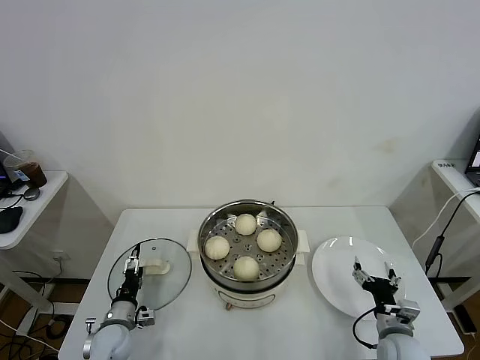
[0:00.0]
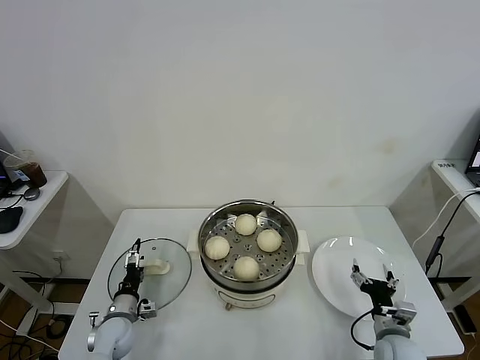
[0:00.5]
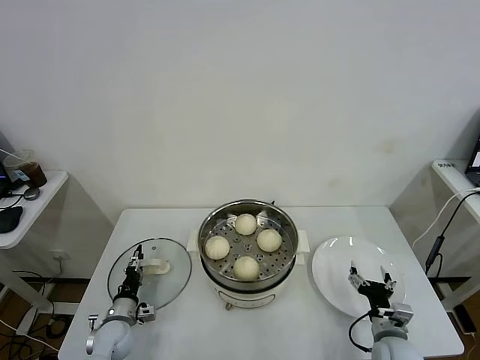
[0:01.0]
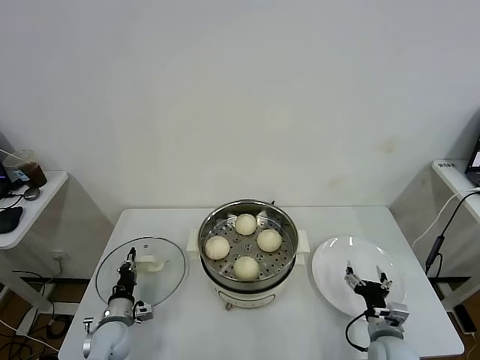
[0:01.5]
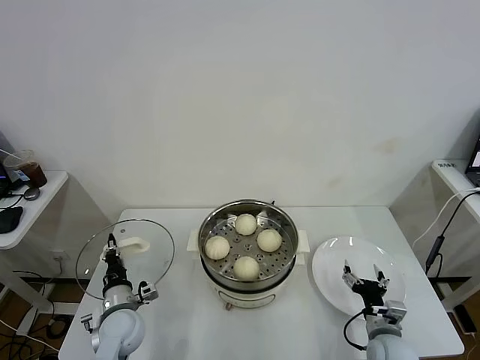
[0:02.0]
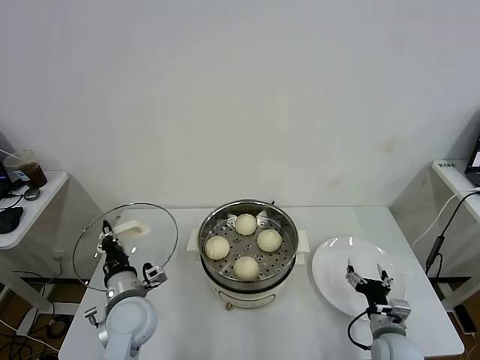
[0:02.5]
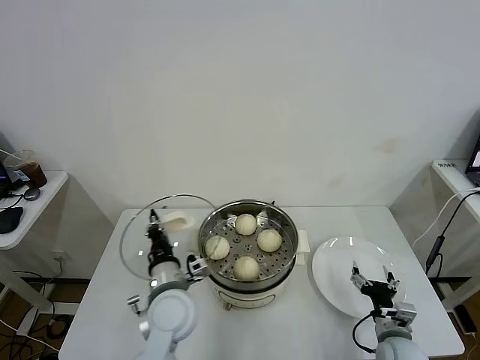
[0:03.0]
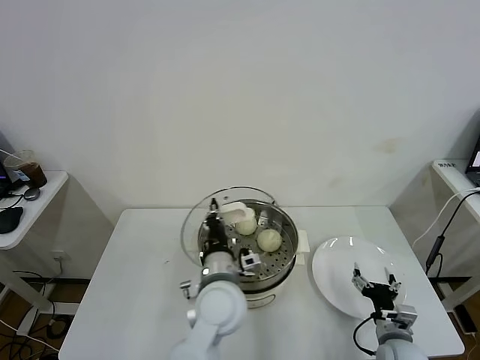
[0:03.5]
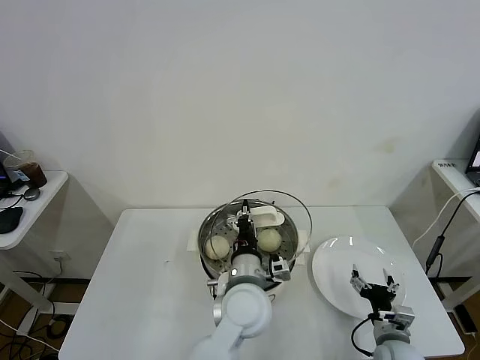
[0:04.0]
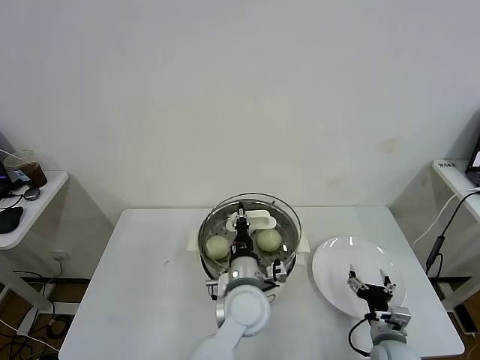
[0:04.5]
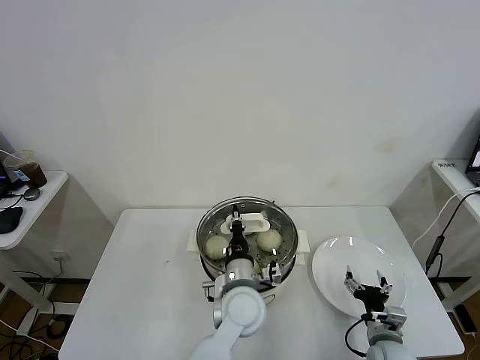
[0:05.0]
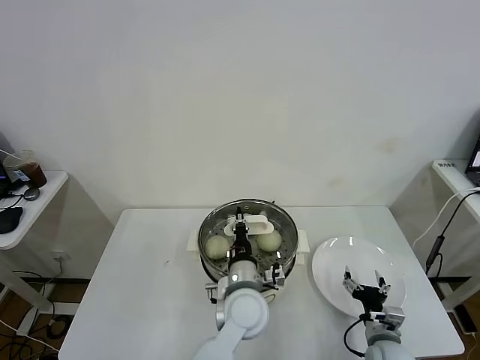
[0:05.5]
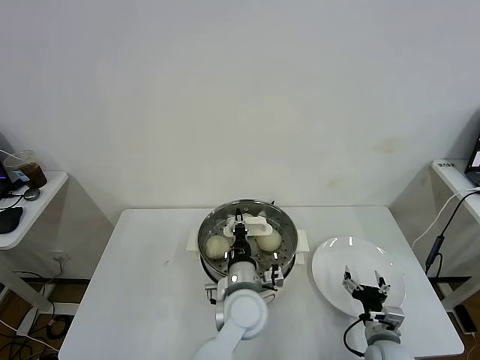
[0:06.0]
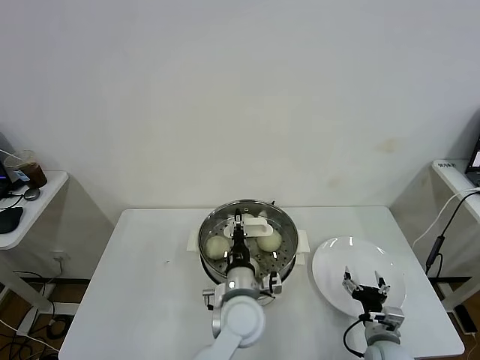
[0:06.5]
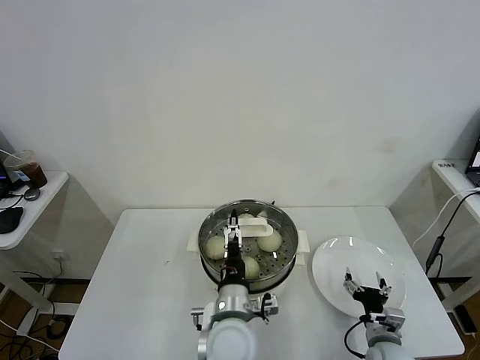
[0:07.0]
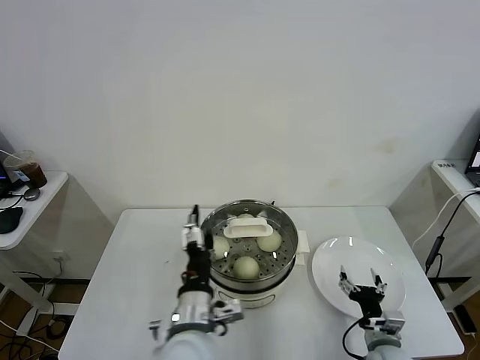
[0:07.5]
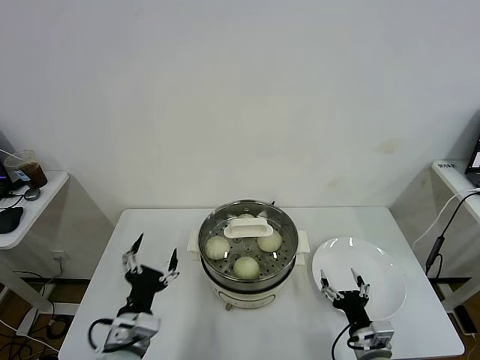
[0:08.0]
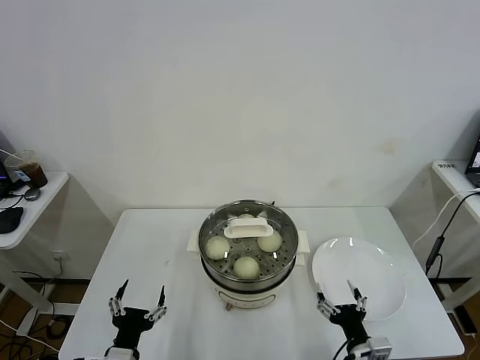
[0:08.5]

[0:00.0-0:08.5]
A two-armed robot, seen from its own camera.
Task of the whole recording: take steamed baozi put them in steamer.
Step, 0:02.0 to 0:06.5: Place the pot lid on the steamer with left gripper.
0:00.0 to 0:02.0: The left gripper travels upward by some 10 cm, and closes.
0:02.0 to 0:04.0: The left gripper moves to the right and upward, roughly 30 cm.
0:04.0 to 0:06.5: The left gripper travels downward by some 5 cm.
0:06.5 to 0:08.5: The right gripper is displaced backward by approximately 5 cm; the left gripper heads to the left and backward, covering some 30 cm, and opens.

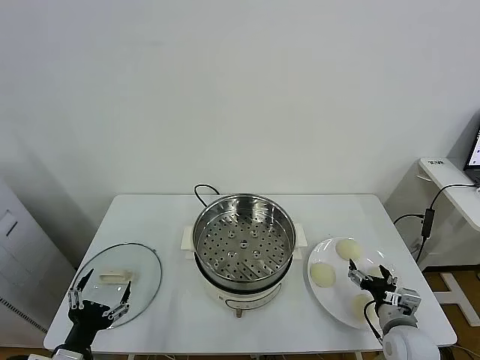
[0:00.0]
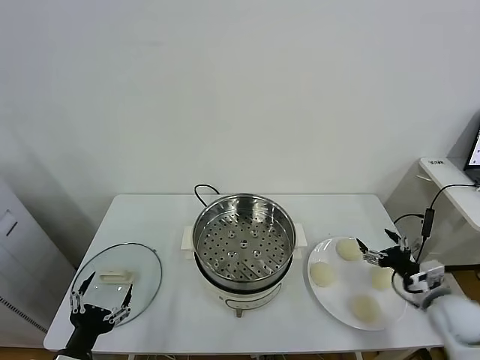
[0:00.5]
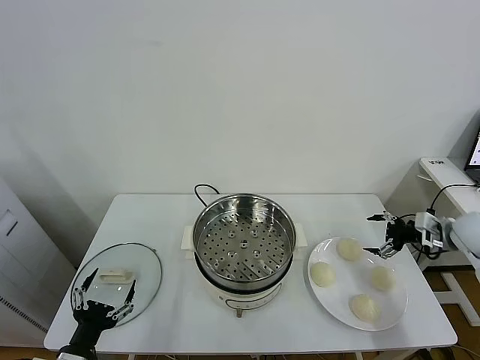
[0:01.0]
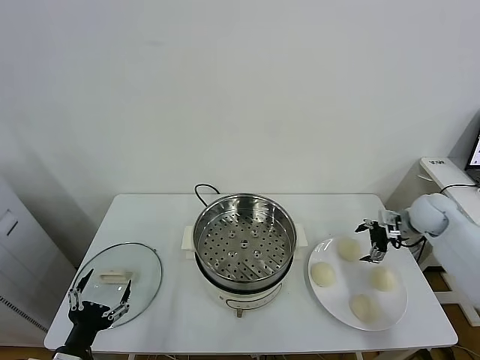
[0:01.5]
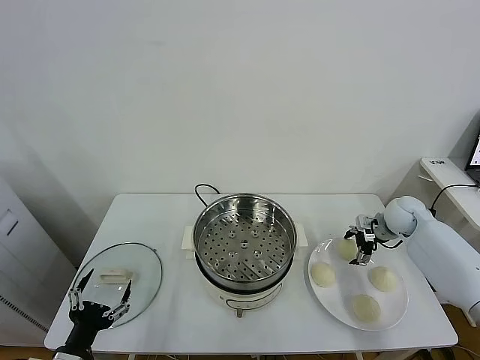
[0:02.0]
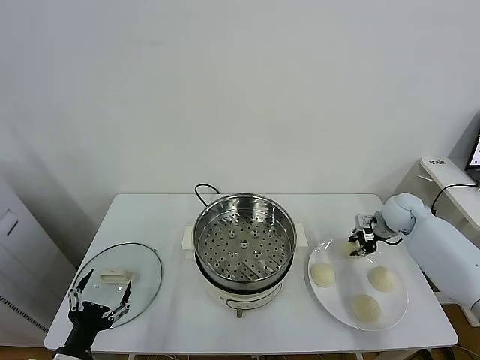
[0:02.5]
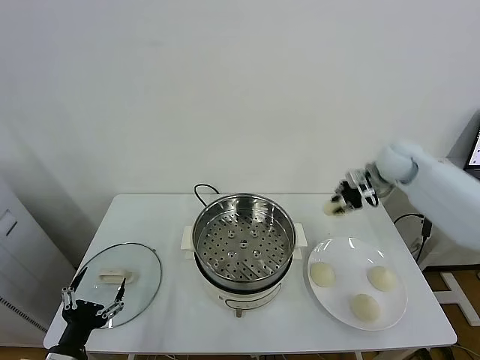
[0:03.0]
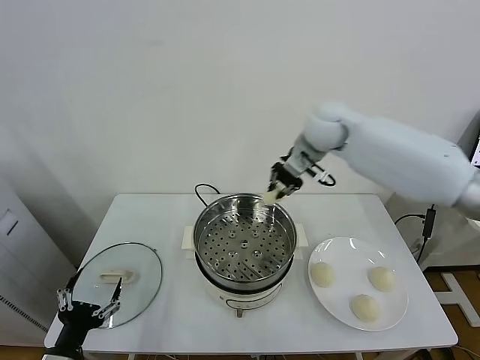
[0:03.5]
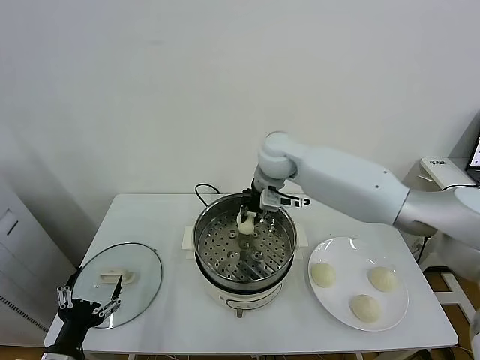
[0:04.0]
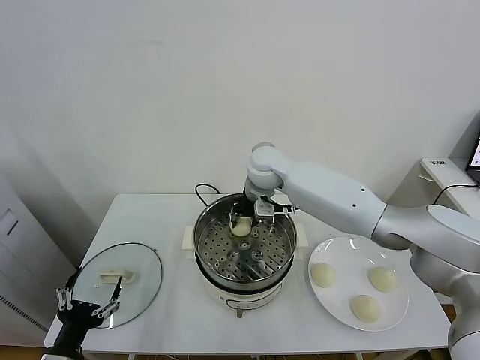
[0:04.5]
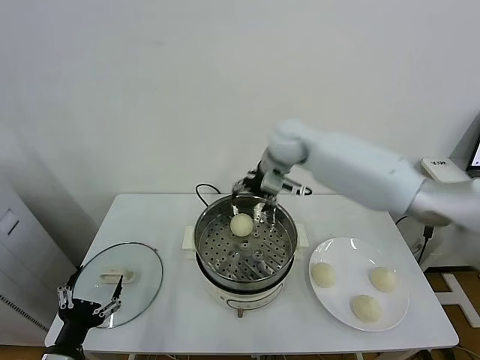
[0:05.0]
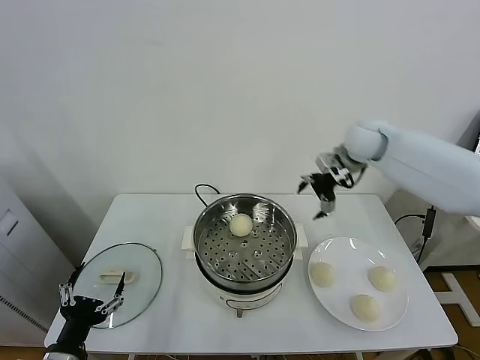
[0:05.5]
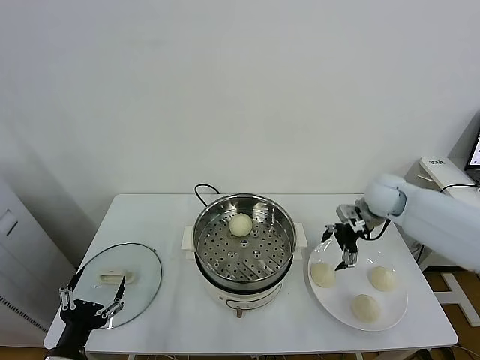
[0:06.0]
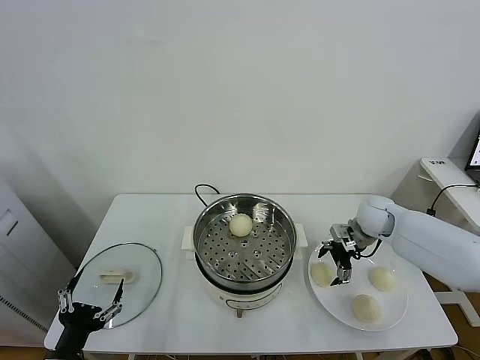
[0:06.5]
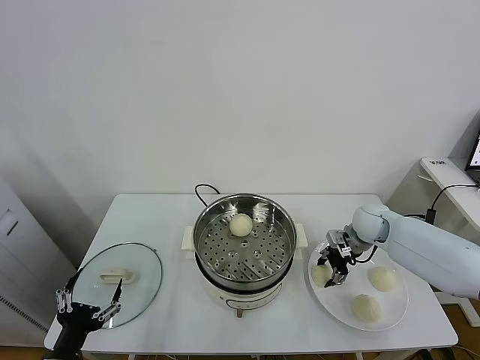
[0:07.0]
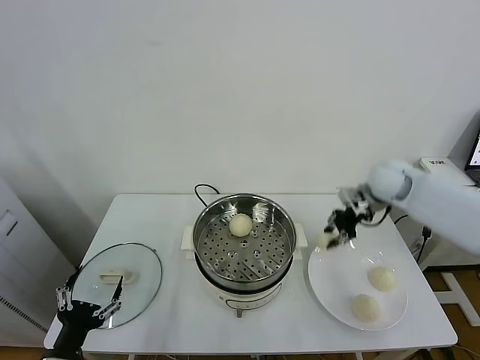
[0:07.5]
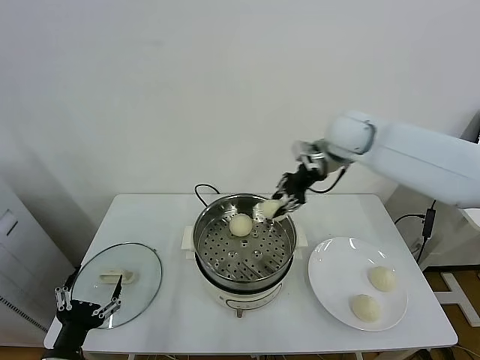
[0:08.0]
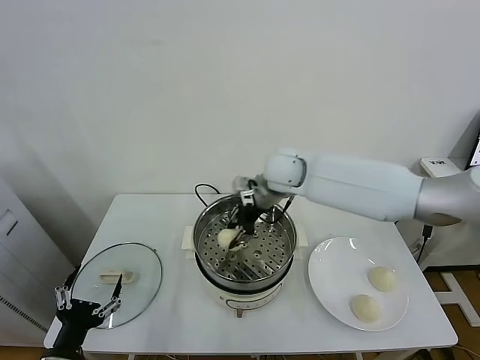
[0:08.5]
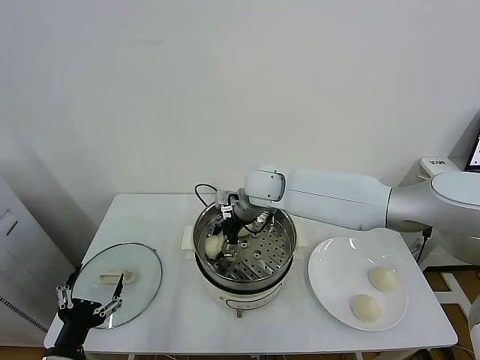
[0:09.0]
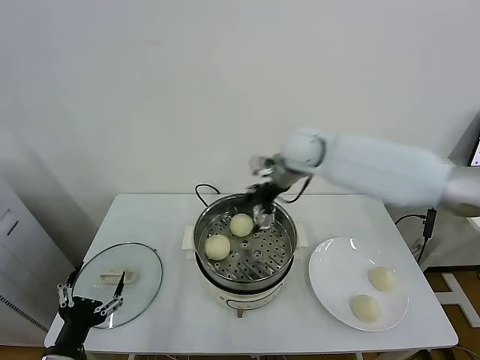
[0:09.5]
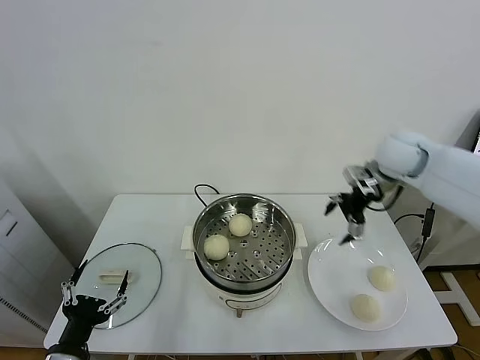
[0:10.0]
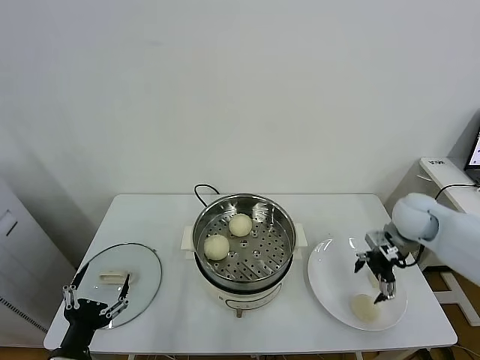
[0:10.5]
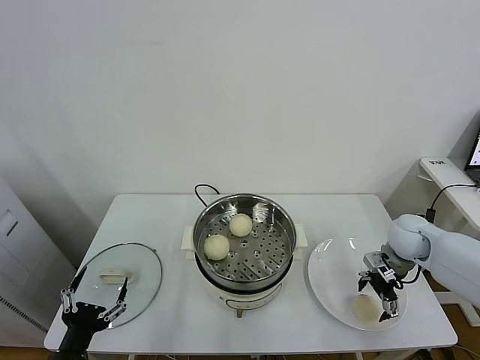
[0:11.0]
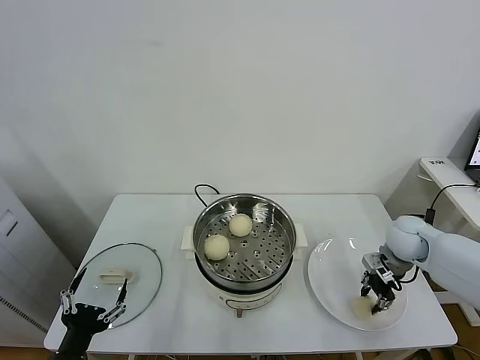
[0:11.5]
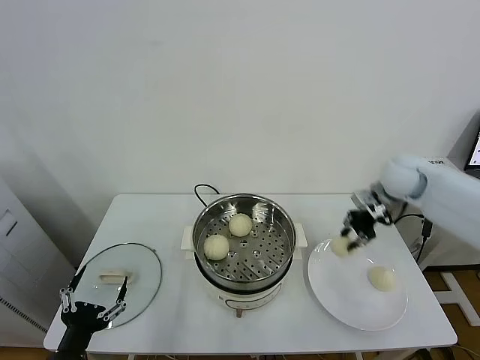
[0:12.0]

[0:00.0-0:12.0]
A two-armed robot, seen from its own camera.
Task of the whole recording: take steamed baozi put them in steamer.
Step, 0:00.0 to 0:02.0: Grasp the baozi in the plate with right gripper.
Step, 0:02.5 to 0:04.5: Place the baozi on the steamer with right gripper.
Step, 0:05.0 to 0:06.5: Grasp the baozi in the plate with right gripper.
Step, 0:07.0 to 0:09.0: Place the baozi on the steamer with right gripper.
Step, 0:09.5 to 0:11.0: Grasp the baozi in the plate with right gripper.
0:02.0 to 0:04.0: The right gripper heads to the left and upward, covering roughly 40 cm, and closes its fingers.
0:04.0 to 0:06.0: The right gripper heads to the right, covering roughly 25 cm, and opens its fingers.
0:06.0 to 0:08.0: The right gripper goes about 25 cm upward and to the left, and closes its fingers.
0:08.0 to 0:10.0: The right gripper goes some 15 cm to the right, and opens.
0:10.0 to 0:12.0: The right gripper travels downward and back again, some 15 cm each way, and closes.

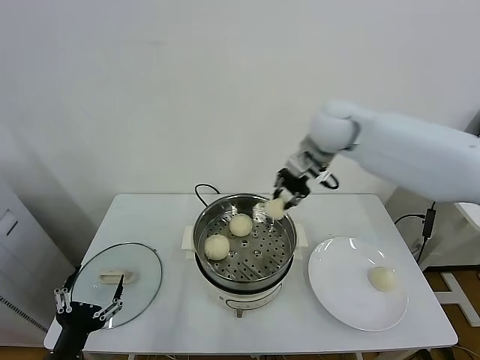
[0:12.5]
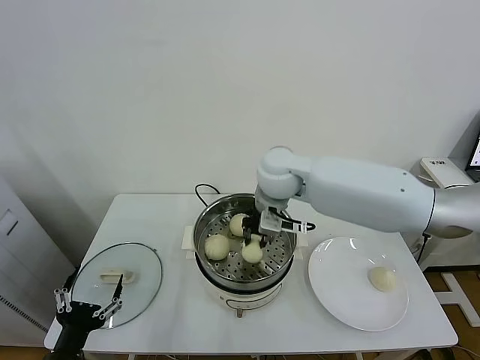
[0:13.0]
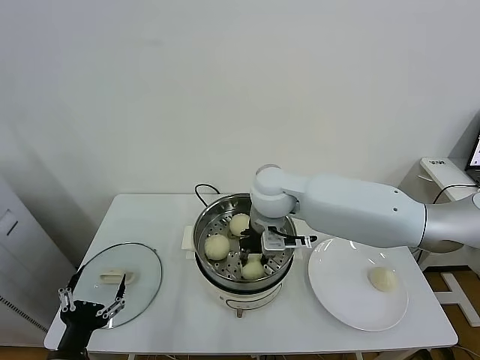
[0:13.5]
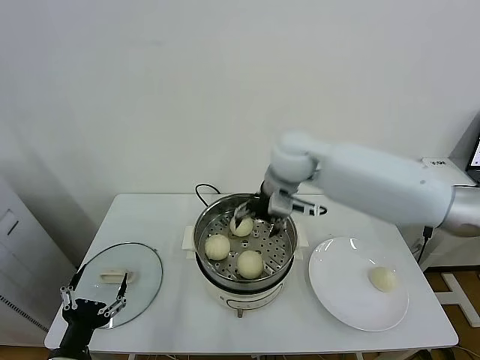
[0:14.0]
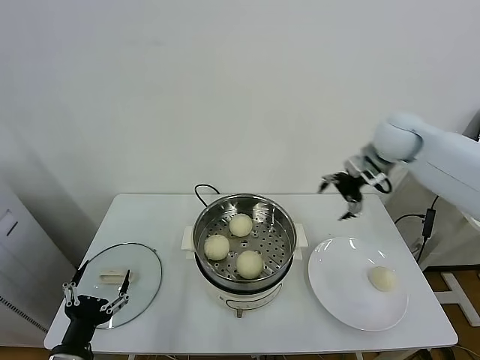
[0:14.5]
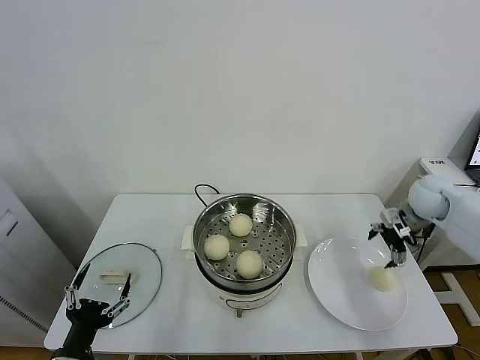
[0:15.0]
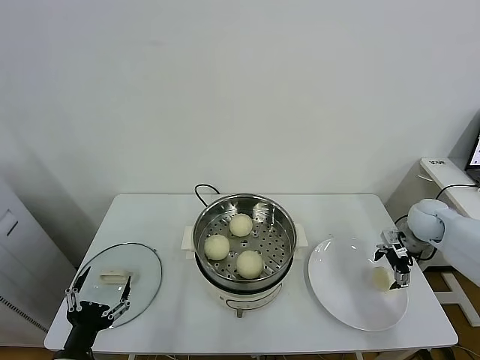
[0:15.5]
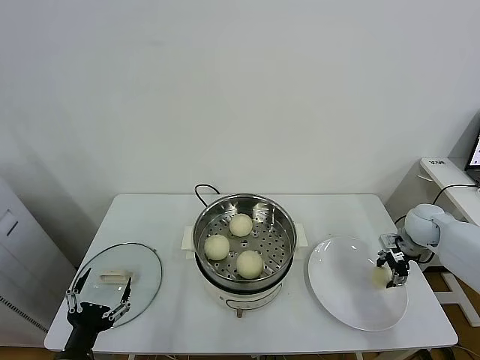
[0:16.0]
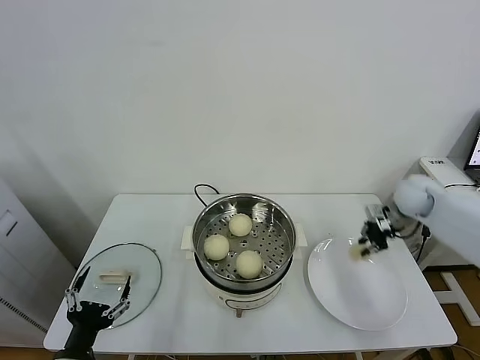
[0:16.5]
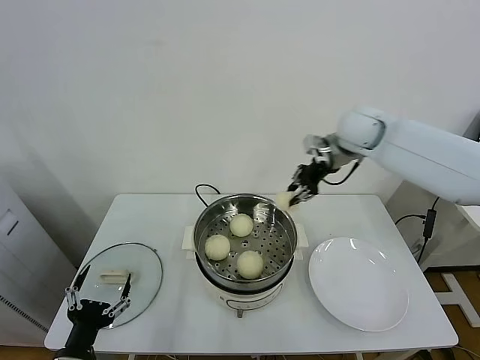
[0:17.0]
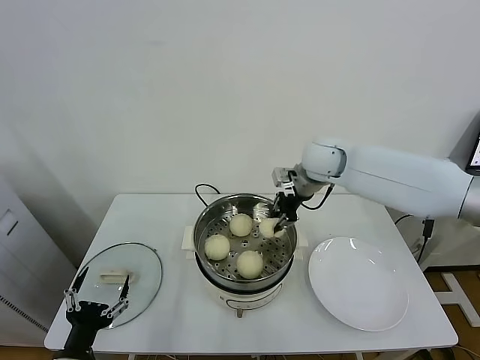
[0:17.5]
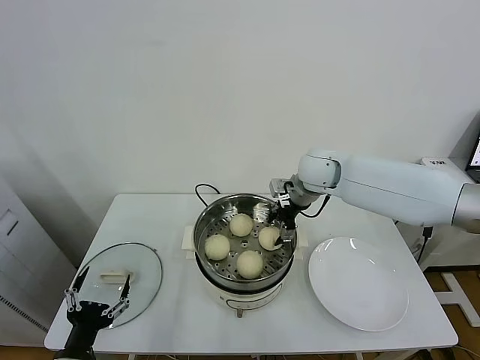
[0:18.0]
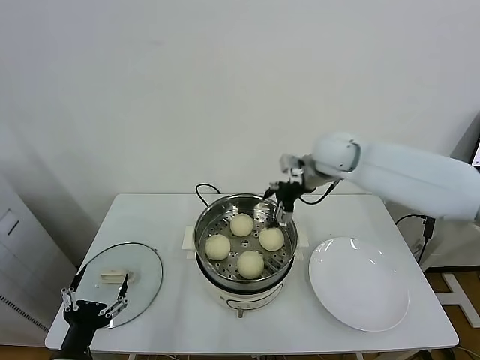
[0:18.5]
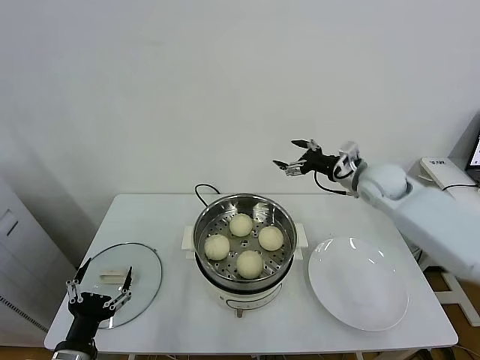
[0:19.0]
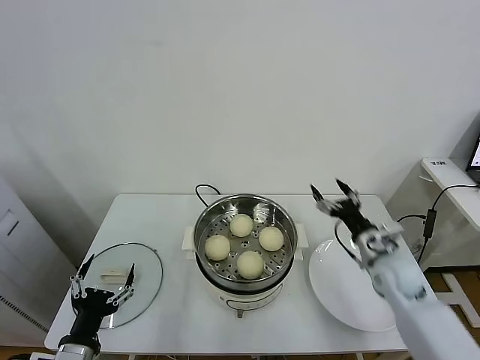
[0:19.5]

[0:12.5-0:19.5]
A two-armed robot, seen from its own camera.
Task of the whole recording: take steamed baozi put them in steamer.
Step, 0:14.0 to 0:15.5: Grasp the baozi in the plate with right gripper.
Step, 0:16.5 to 0:18.0: Place the baozi on the steamer with right gripper.
0:12.5 to 0:14.5: The right gripper heads to the right, covering some 20 cm, and opens up.
0:14.5 to 0:16.0: The right gripper moves downward and to the right, roughly 25 cm, and closes its fingers.
0:16.0 to 0:17.5: The right gripper goes some 35 cm to the left and upward, and closes up.
0:17.5 to 0:19.5: The right gripper heads downward, to the right and backward, covering about 30 cm, and opens its fingers.
